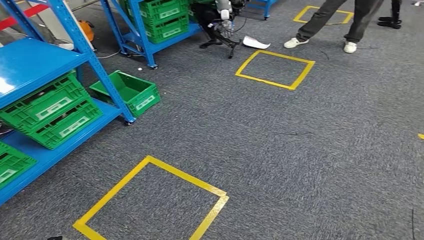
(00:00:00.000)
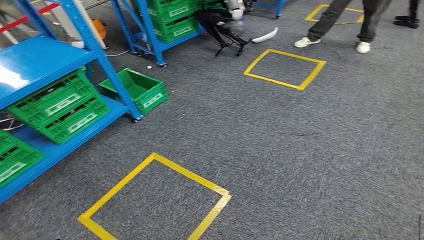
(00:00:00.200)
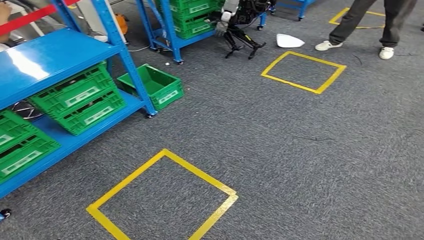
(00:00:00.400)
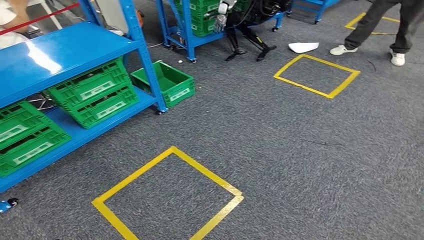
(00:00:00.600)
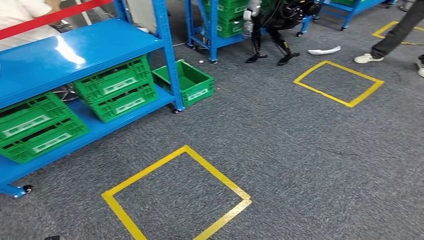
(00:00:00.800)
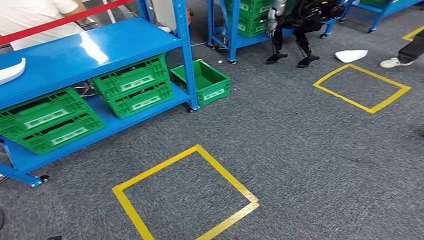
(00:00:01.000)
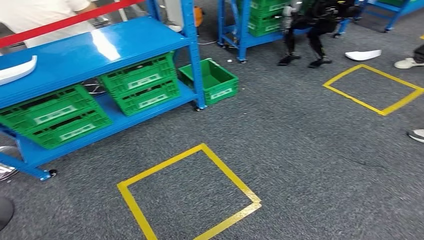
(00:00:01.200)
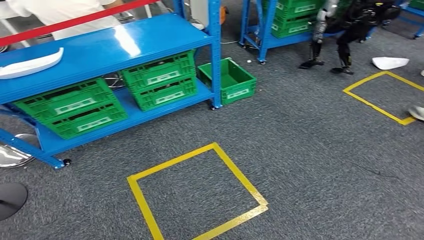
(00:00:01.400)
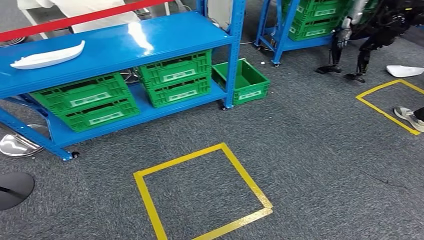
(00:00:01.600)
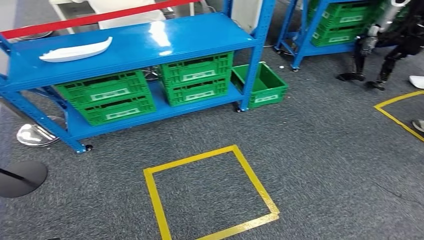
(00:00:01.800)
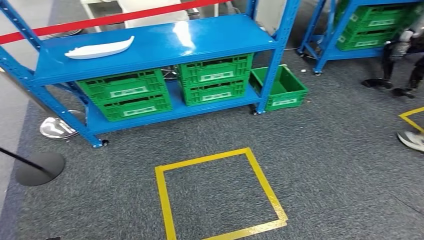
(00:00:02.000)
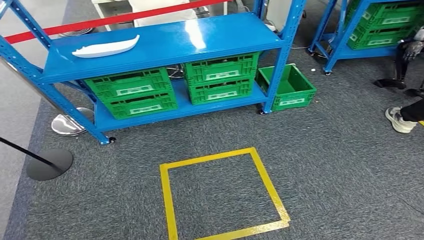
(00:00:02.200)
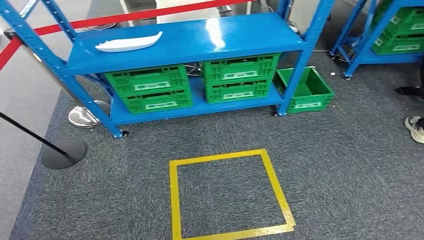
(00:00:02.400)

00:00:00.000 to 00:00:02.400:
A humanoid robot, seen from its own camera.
Step, 00:00:00.000 to 00:00:02.200: Move to the initial position of the workbench.
